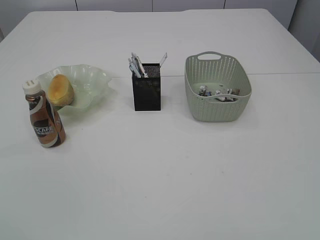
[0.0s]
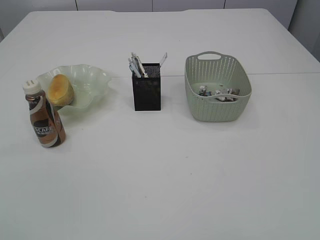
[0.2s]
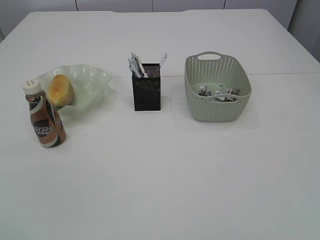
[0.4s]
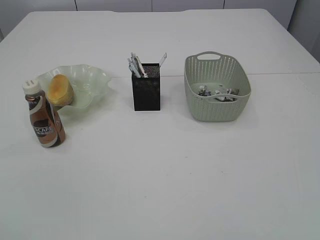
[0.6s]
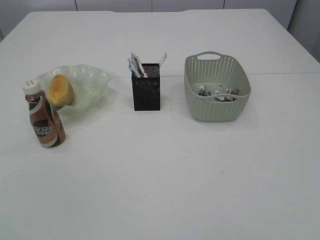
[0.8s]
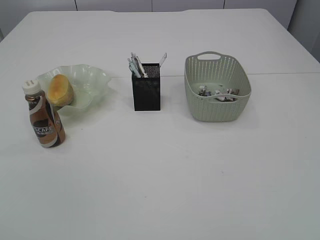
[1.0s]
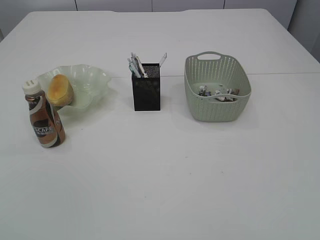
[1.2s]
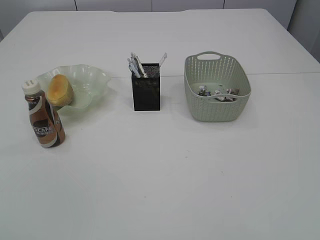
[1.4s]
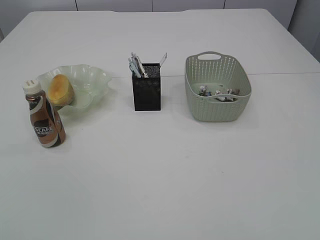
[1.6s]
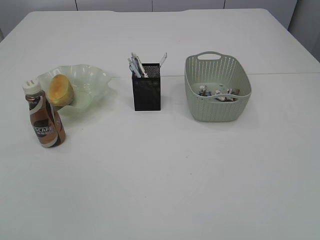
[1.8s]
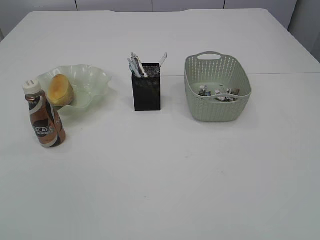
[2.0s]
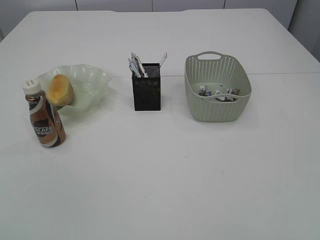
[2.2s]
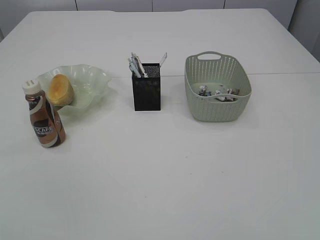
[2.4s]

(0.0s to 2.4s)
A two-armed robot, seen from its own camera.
1.2s - 2.4s: The two grippers keep their place.

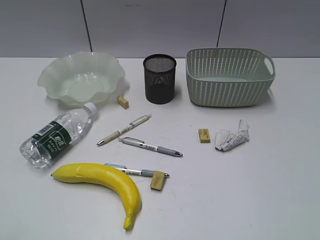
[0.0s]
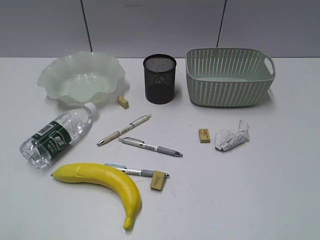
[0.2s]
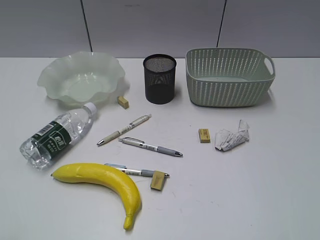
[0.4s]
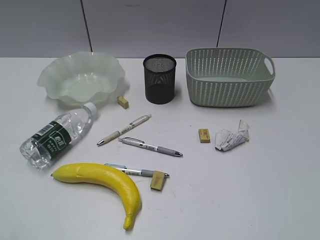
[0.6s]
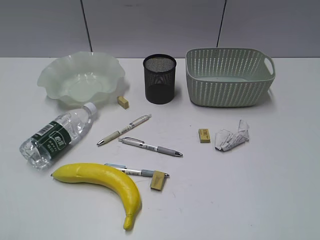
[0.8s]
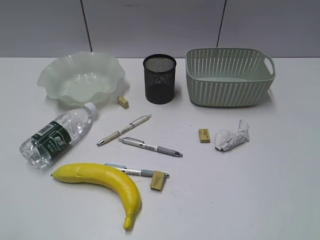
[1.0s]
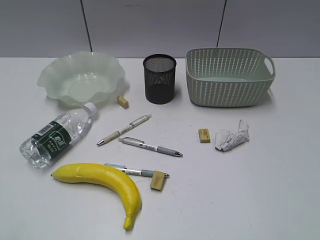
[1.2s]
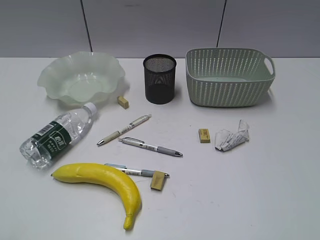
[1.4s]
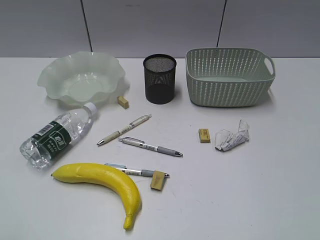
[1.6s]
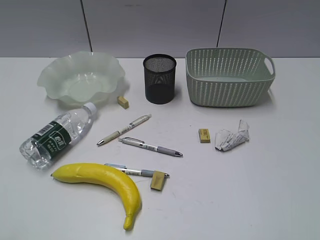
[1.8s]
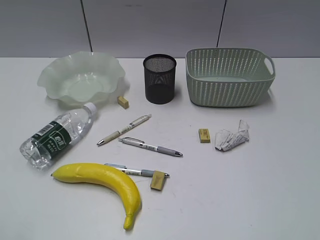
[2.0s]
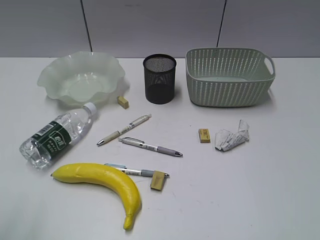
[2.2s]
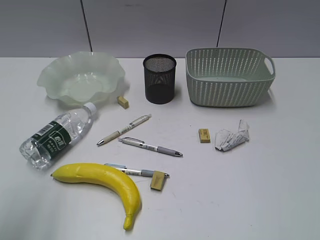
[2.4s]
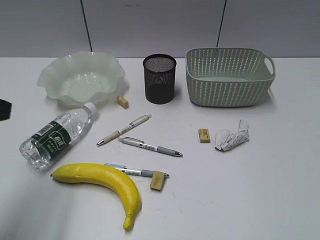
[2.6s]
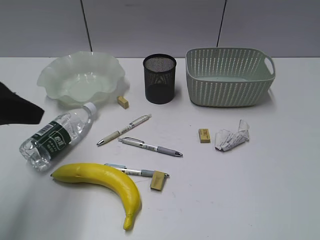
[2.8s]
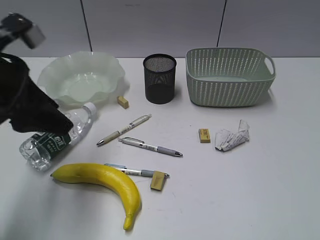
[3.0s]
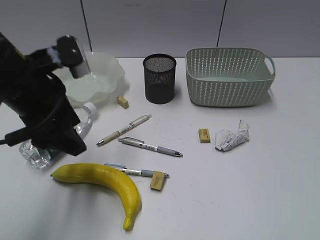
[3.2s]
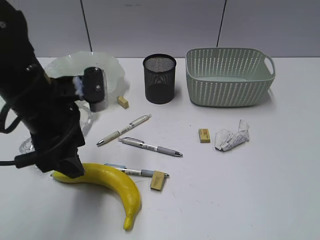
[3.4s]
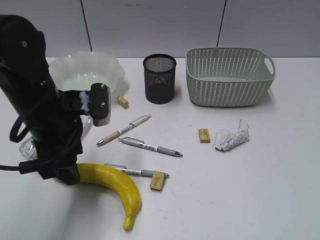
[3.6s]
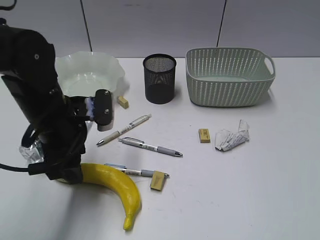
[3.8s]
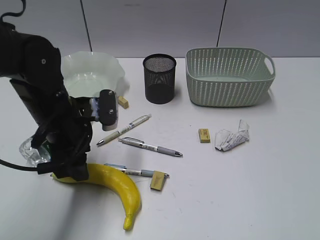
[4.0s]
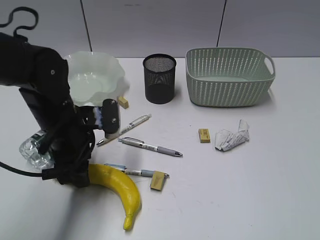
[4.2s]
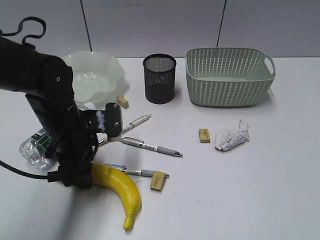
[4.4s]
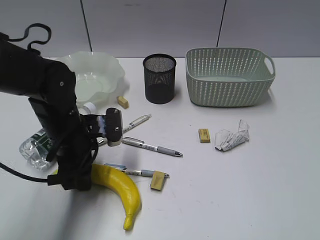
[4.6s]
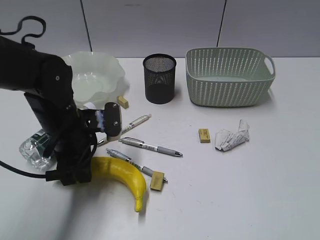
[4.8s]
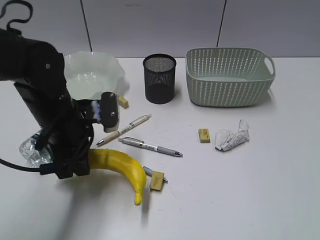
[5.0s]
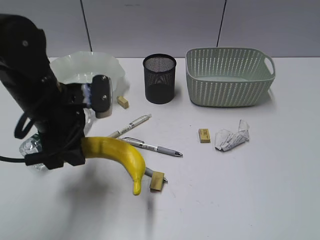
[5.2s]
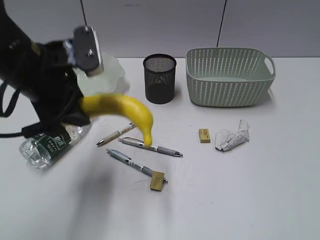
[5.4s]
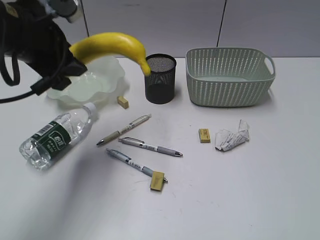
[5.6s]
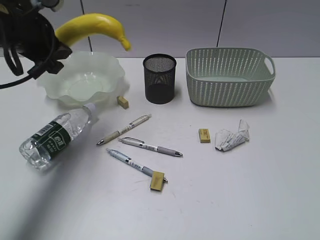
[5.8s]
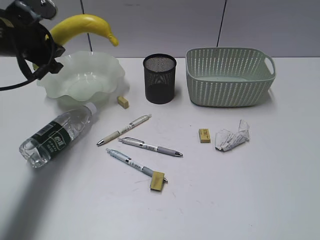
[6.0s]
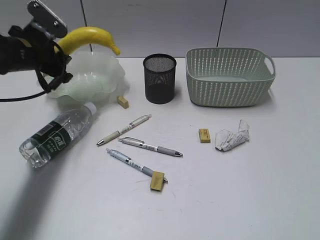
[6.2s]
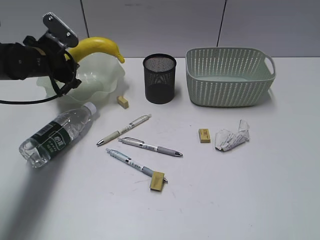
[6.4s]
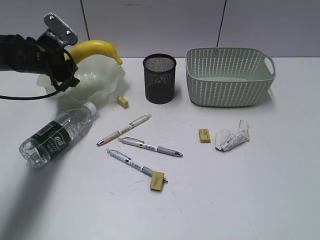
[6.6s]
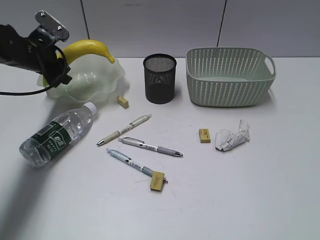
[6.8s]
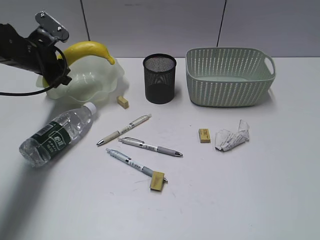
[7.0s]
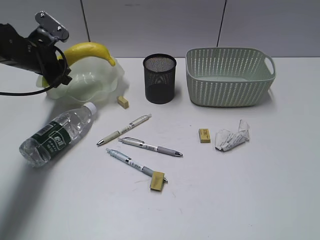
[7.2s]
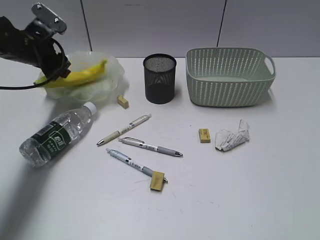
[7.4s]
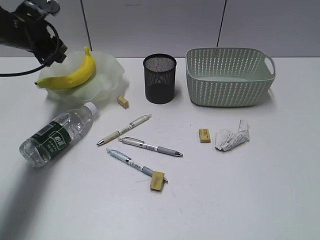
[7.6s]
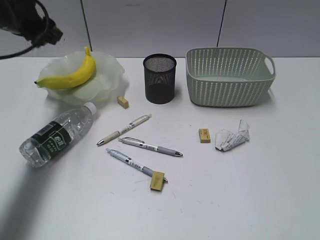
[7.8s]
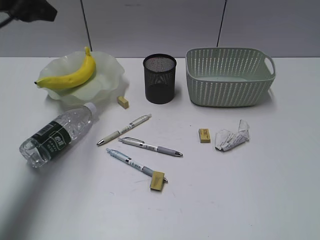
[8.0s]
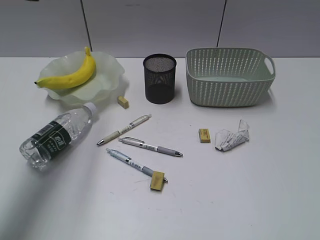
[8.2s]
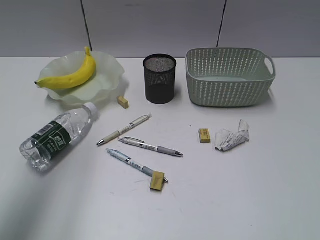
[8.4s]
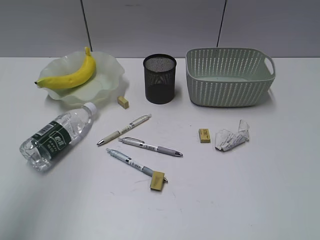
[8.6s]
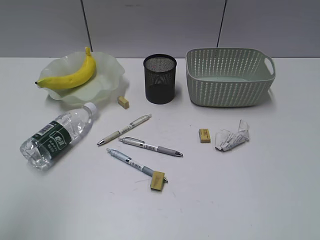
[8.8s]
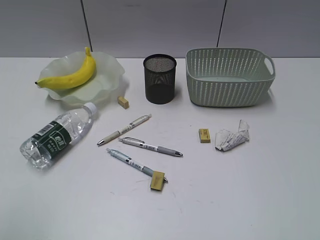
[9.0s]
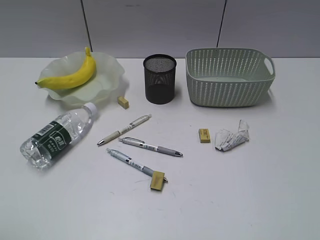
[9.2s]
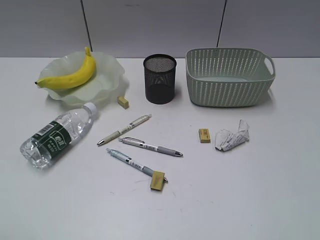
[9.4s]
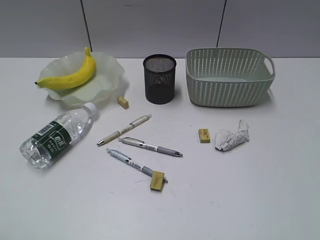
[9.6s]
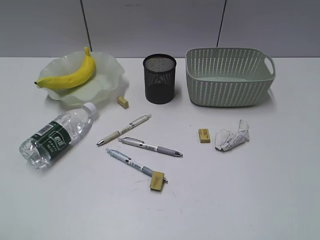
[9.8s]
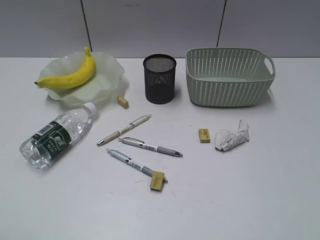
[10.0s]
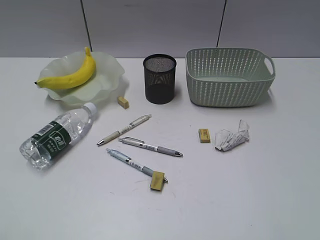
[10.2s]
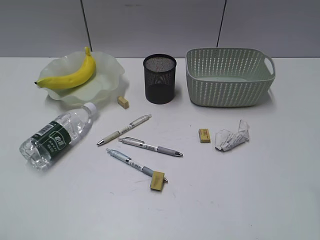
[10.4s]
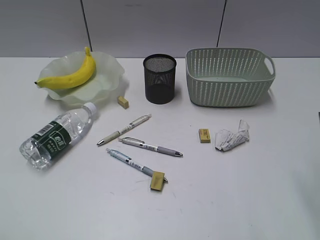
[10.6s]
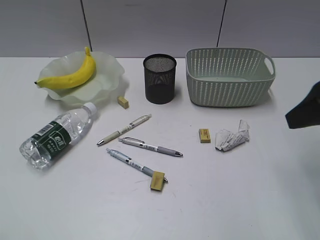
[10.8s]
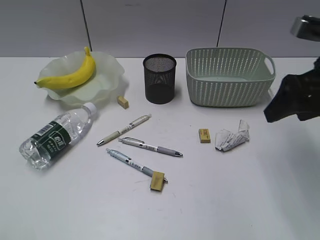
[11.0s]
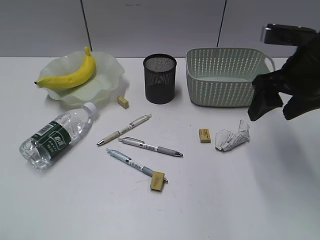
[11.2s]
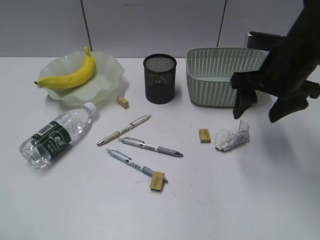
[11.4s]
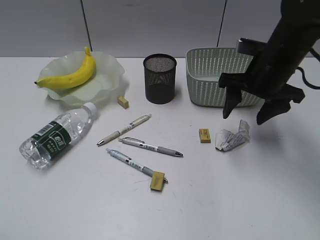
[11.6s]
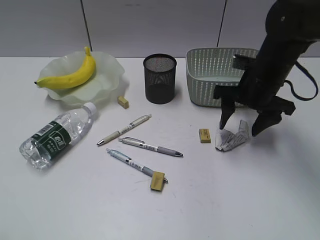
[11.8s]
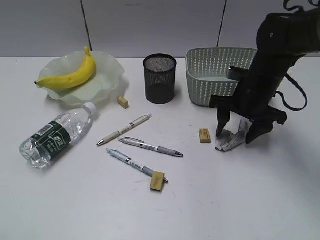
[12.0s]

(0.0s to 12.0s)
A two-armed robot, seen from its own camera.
Step, 2.0s - 4.6s: Grasp the banana with left gripper.
Step, 4.8s - 7.4s: Place the banana in the plate with left gripper.
1.6s - 3.0s: The left gripper goes about 25 cm forward, and opens up.
3.0s - 4.4s: The left gripper shifts some 15 cm downward and to the right.
4.4s - 6.0s: The left gripper moves upward, to the left and forward, about 15 cm, and closes.
6.0s - 7.6s: The left gripper goes about 5 cm forward.
7.6s - 9.0s: The left gripper goes about 40 cm backward and upward.
10.4s - 12.0s: The right gripper moves forward and downward, some 35 cm, and opens.

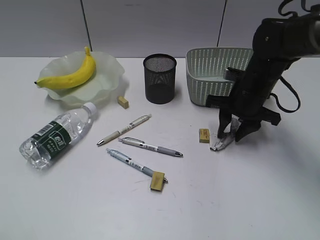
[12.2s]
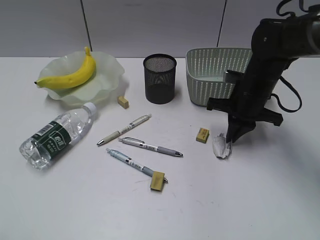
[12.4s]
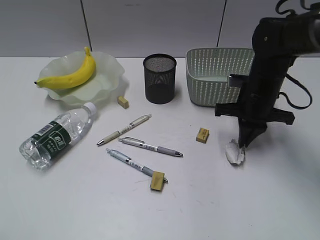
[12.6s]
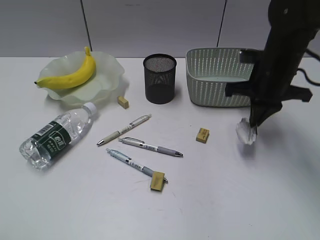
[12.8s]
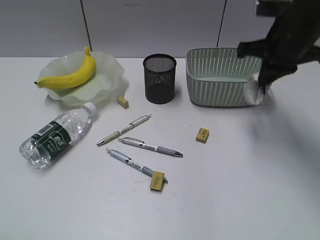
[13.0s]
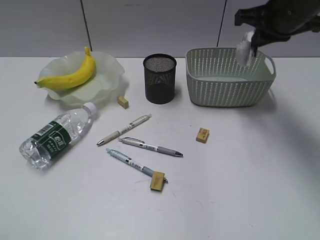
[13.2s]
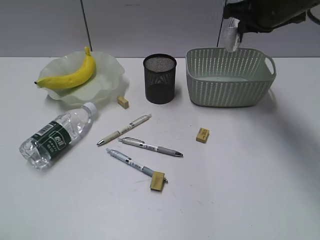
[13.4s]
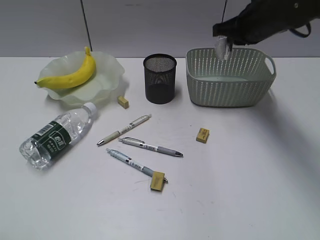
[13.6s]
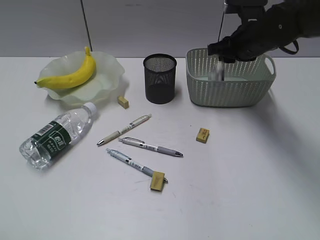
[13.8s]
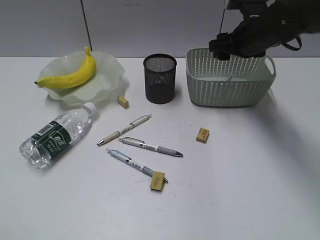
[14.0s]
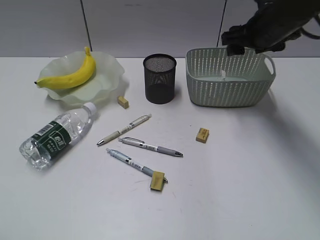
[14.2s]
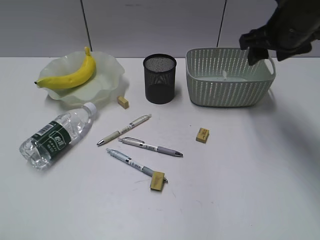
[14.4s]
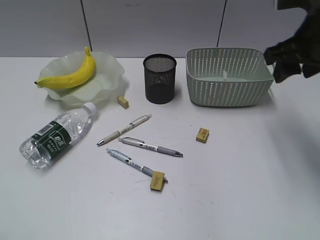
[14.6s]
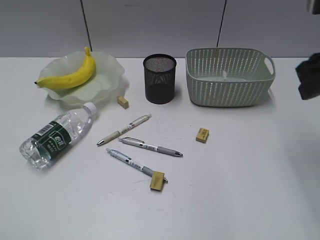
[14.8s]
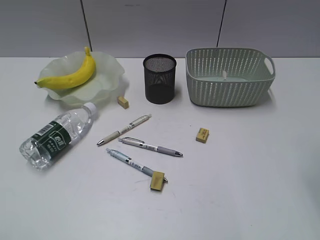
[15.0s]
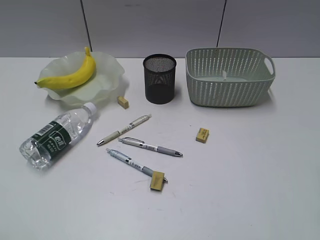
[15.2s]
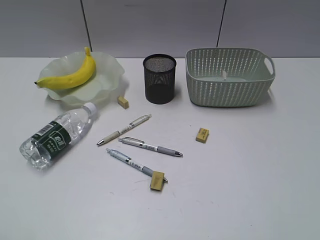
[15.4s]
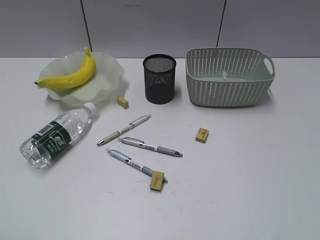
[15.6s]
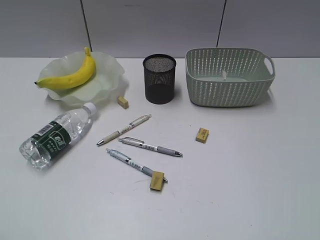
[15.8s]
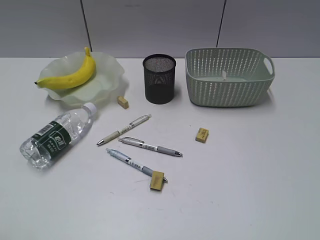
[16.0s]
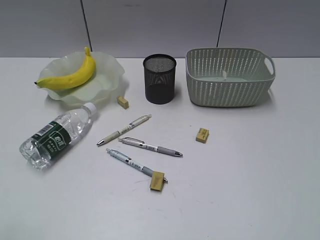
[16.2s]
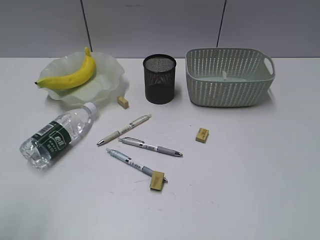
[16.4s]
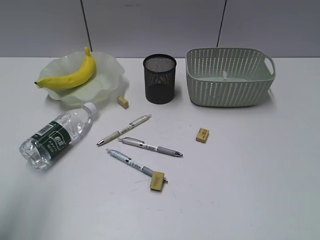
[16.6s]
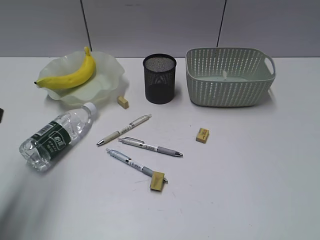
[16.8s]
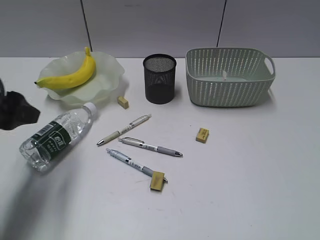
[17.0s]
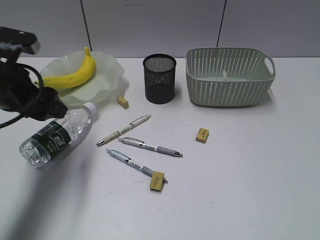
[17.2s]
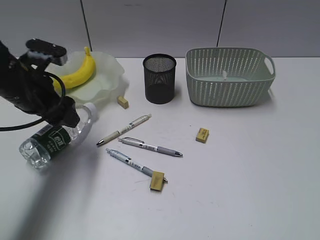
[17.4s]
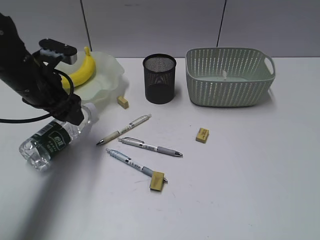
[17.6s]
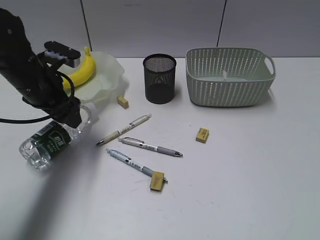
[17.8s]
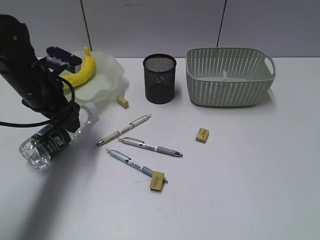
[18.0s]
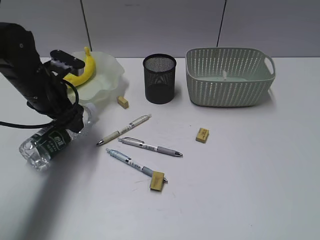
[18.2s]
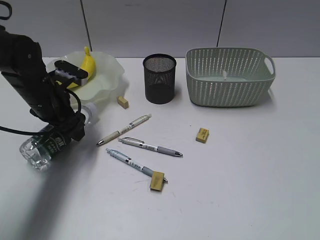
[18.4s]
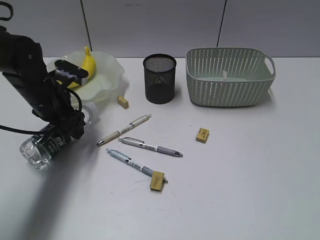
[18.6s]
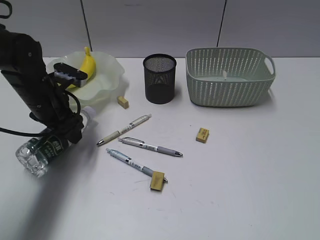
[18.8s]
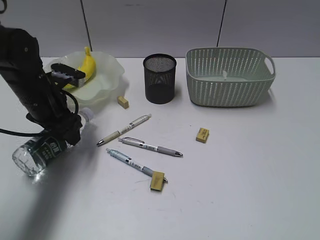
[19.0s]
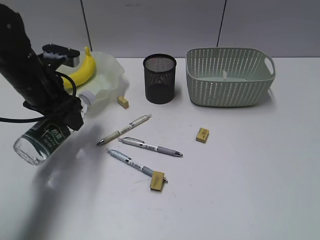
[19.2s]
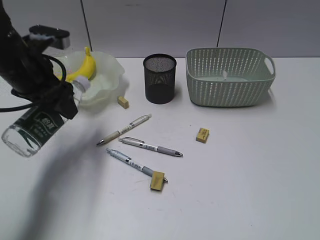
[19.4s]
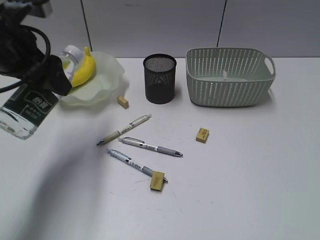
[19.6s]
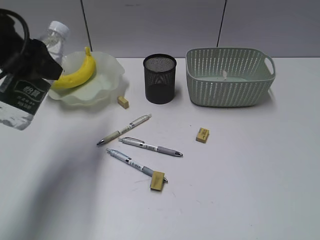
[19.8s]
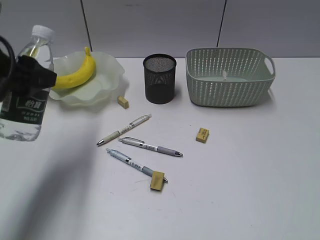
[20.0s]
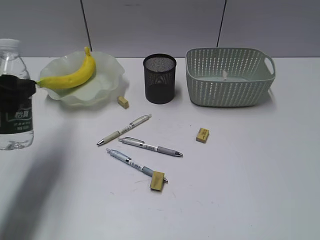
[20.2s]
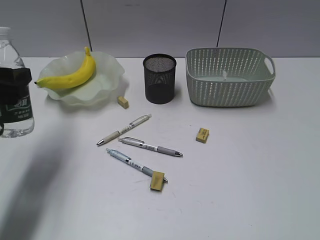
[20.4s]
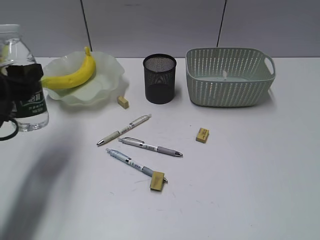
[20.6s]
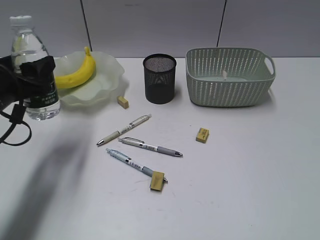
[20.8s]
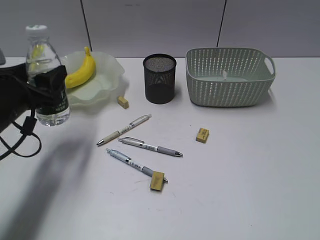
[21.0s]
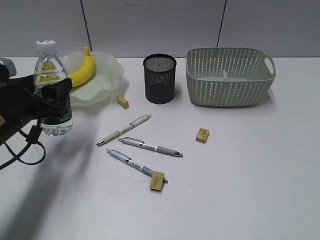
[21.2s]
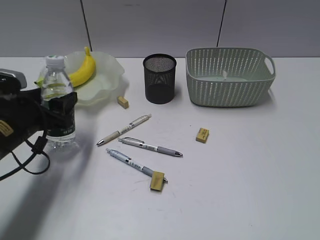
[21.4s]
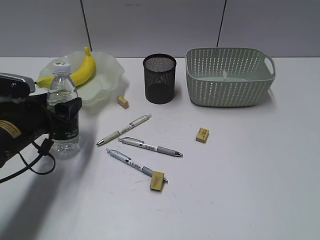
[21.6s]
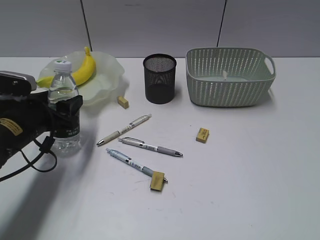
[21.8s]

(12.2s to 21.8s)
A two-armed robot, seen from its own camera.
Step, 12.6s - 14.0s: Place the waste paper in the basket with right gripper.
Step, 14.2s - 18.6s: Grasp the bottle with left gripper.
12.2s - 13.8s: The right gripper is displaced upward and forward by some 10 cm, and closes its fingers.
13.8s - 15.4s: The right gripper travels backward by approximately 35 cm, and opens and closes again.
15.4s - 17.0s: The left gripper travels forward by approximately 25 cm, and opens its fingers.
17.0s - 18.6s: The left gripper heads forward, downward and to the right, covering some 20 cm.
18.6s - 20.2s: The left gripper travels backward and upward by about 15 cm.
20.2s - 21.8s: The left gripper goes roughly 10 cm downward and forward.
